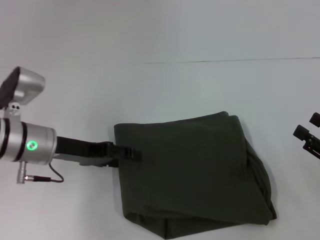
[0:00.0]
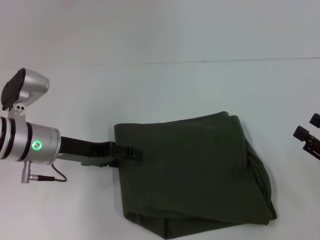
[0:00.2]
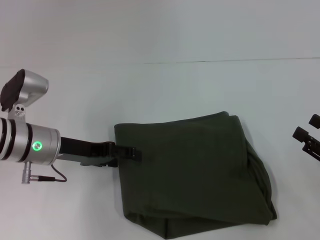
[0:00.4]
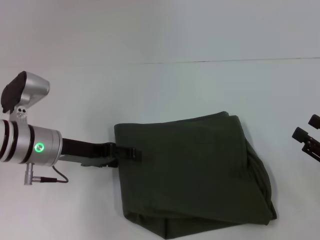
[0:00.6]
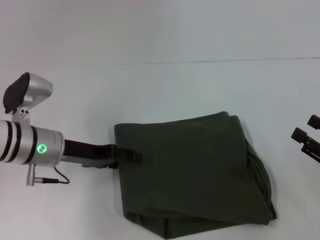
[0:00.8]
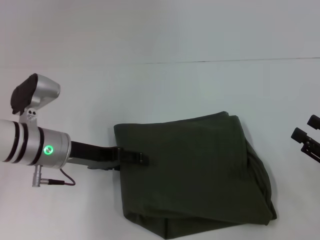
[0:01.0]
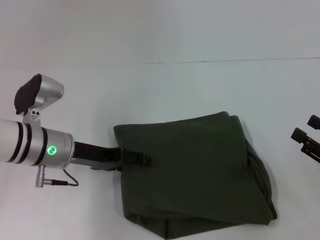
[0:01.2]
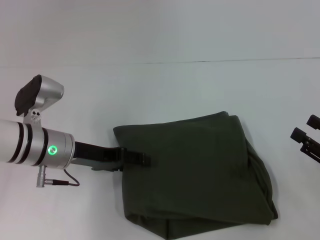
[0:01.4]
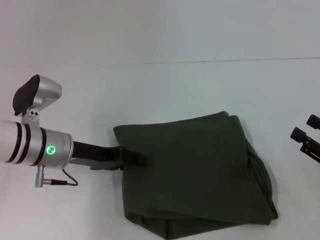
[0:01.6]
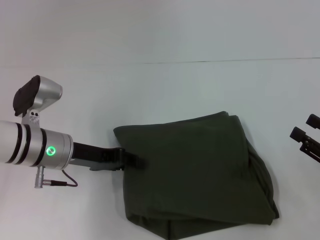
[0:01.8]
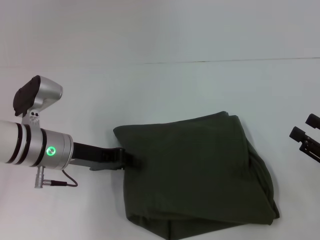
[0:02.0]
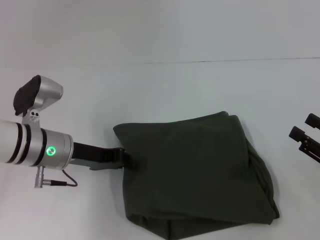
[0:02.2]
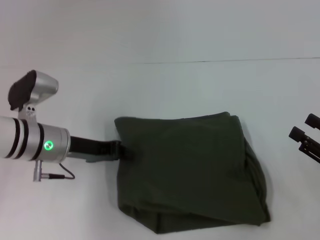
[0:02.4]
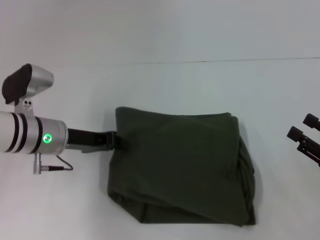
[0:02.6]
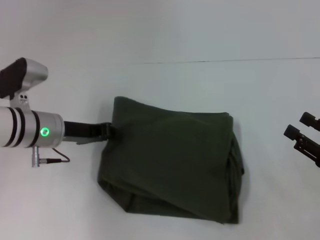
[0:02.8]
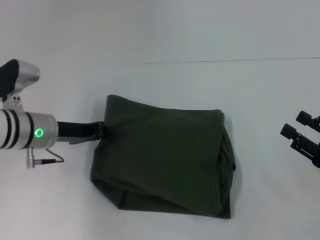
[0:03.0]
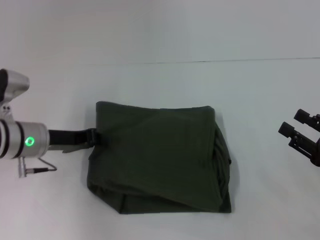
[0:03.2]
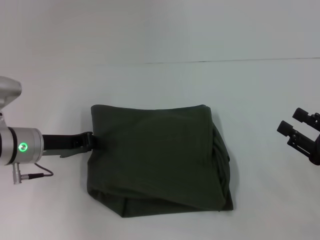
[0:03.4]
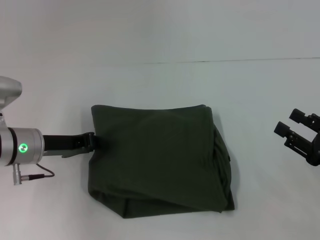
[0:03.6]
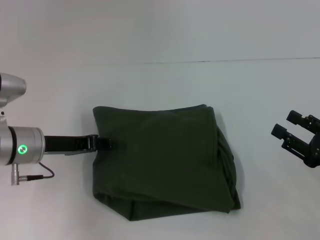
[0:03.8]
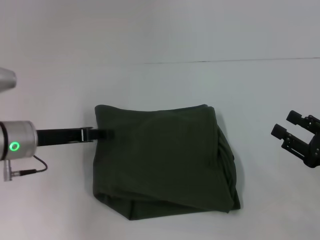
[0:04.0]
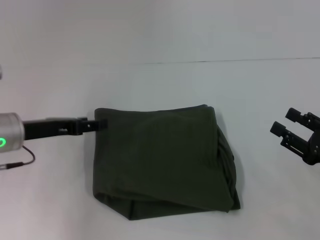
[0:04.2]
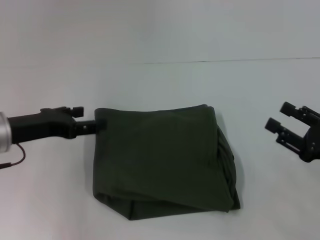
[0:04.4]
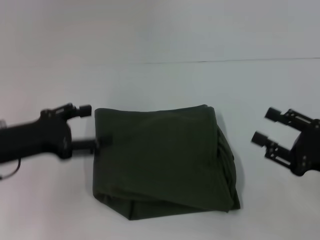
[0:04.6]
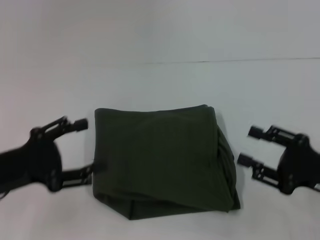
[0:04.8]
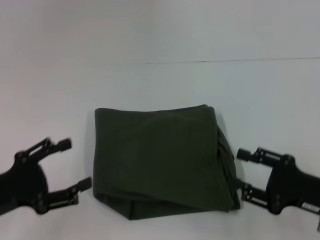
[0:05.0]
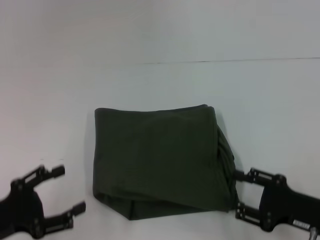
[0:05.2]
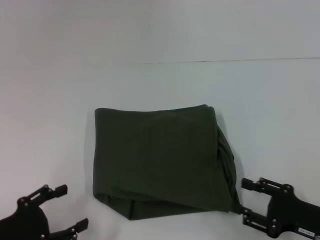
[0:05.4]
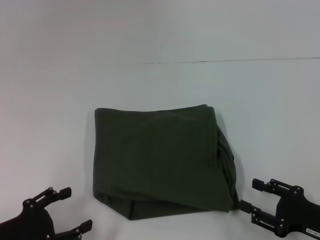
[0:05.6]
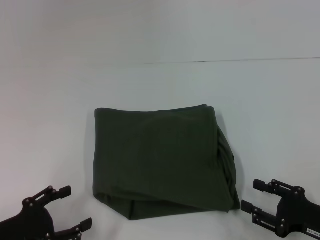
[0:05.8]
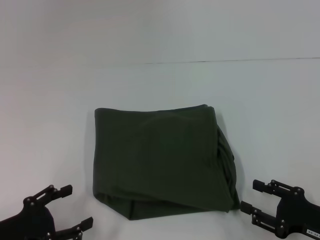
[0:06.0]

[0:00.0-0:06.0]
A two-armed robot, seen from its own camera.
0:00.0 to 0:01.6: The grippers move only a little.
0:01.6 to 0:03.0: The left gripper closes its fingers.
0:03.0 to 0:04.4: The left gripper moves backward, about 5 cm, and opens up.
0:04.4 to 0:06.0: The left gripper goes roughly 15 cm backward and downward; the right gripper goes approximately 10 cm downward and backward.

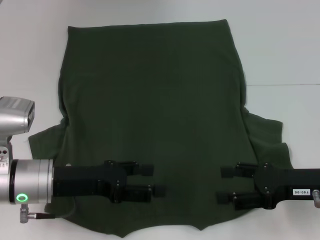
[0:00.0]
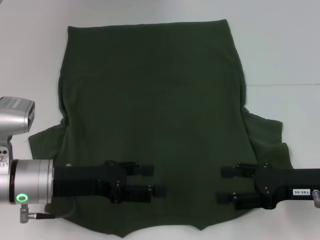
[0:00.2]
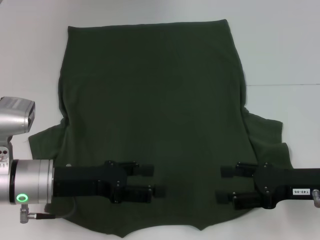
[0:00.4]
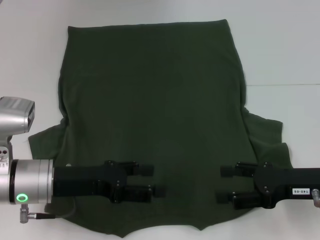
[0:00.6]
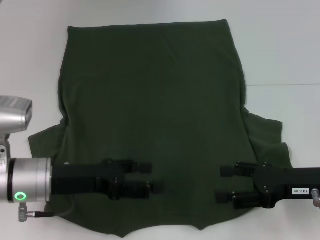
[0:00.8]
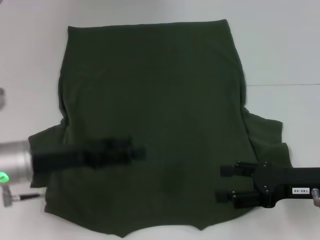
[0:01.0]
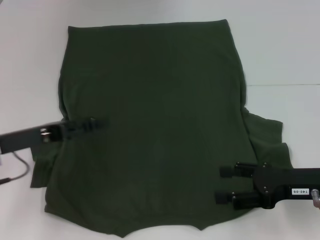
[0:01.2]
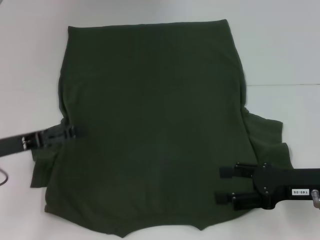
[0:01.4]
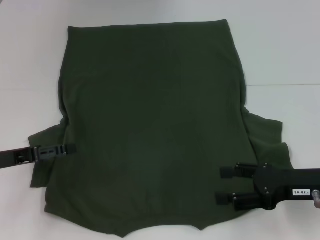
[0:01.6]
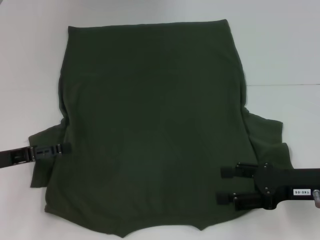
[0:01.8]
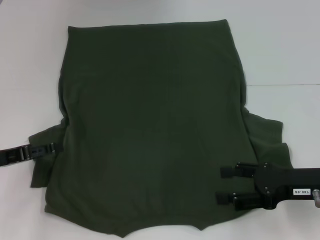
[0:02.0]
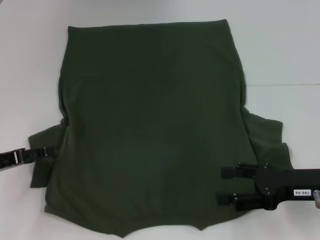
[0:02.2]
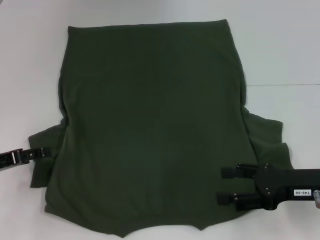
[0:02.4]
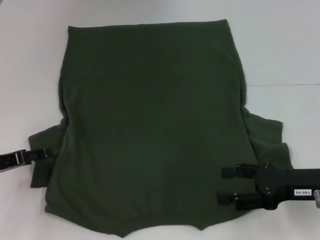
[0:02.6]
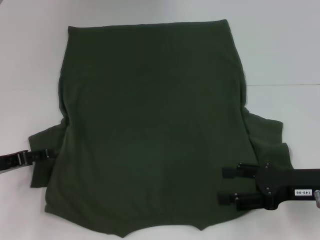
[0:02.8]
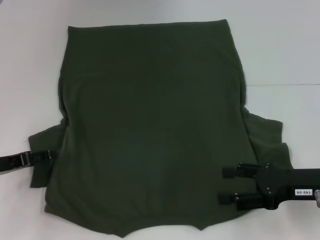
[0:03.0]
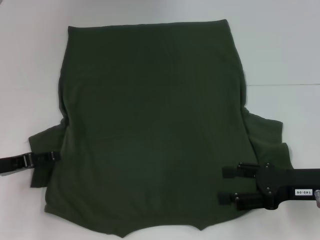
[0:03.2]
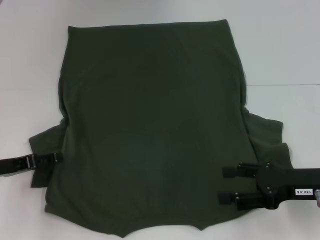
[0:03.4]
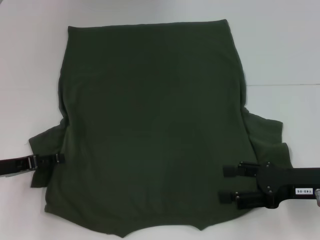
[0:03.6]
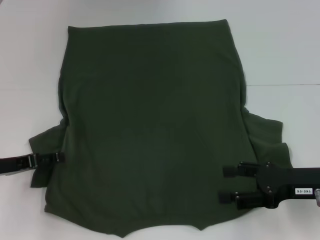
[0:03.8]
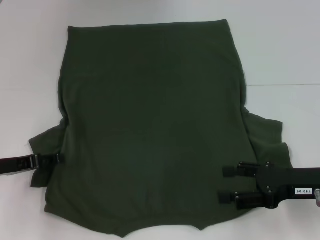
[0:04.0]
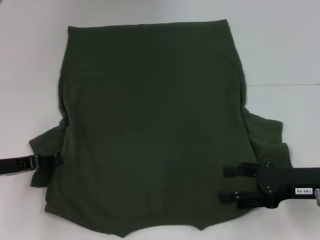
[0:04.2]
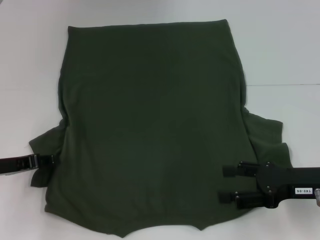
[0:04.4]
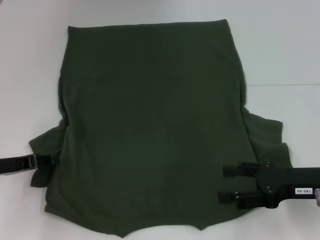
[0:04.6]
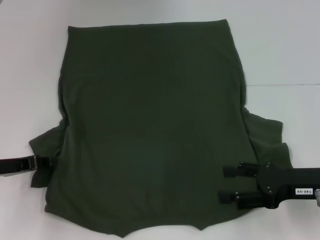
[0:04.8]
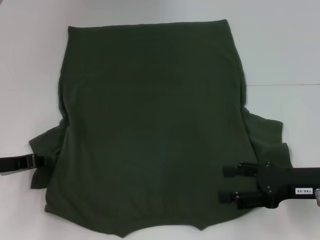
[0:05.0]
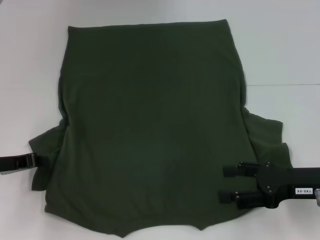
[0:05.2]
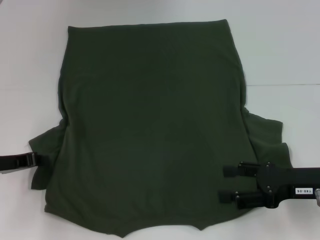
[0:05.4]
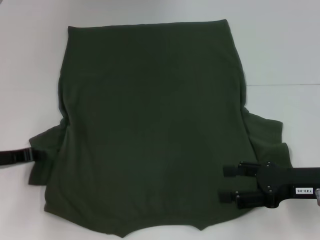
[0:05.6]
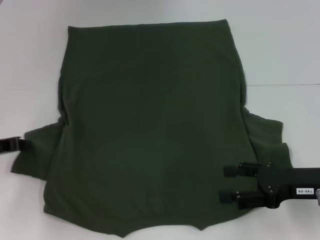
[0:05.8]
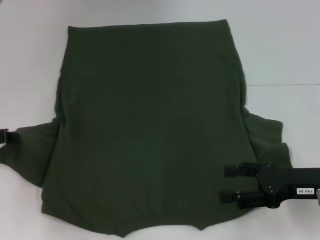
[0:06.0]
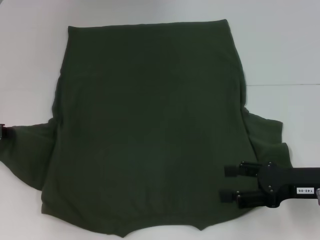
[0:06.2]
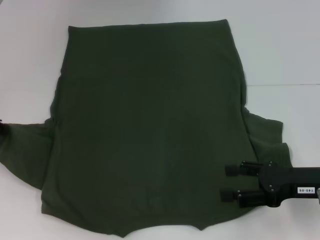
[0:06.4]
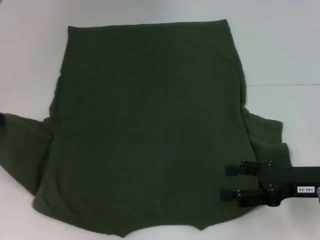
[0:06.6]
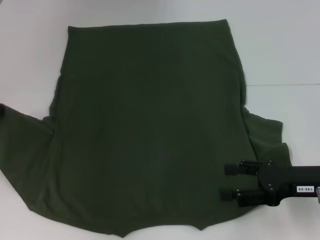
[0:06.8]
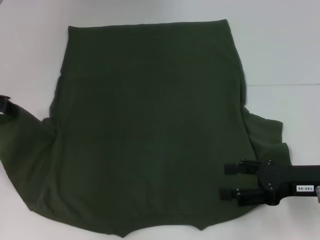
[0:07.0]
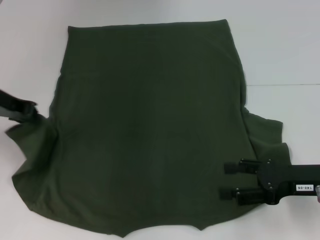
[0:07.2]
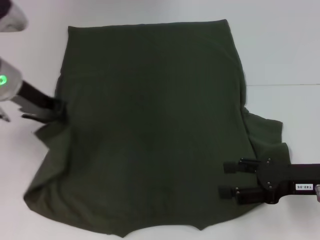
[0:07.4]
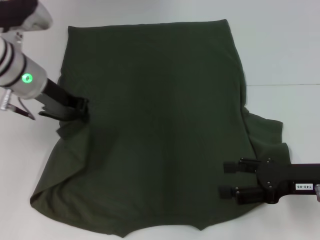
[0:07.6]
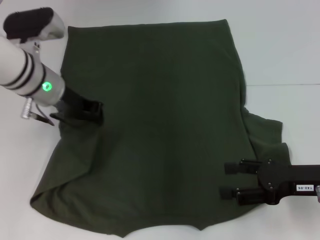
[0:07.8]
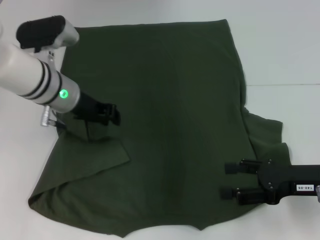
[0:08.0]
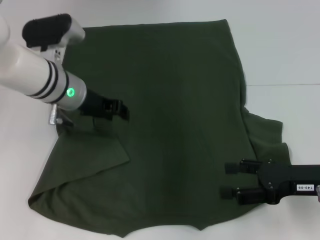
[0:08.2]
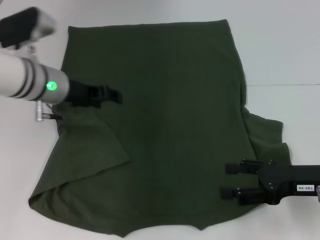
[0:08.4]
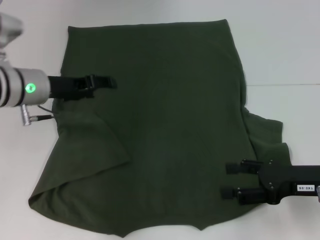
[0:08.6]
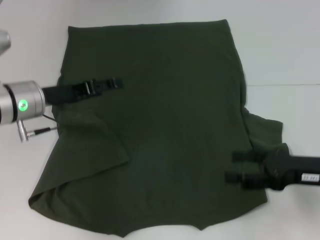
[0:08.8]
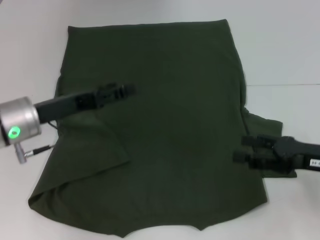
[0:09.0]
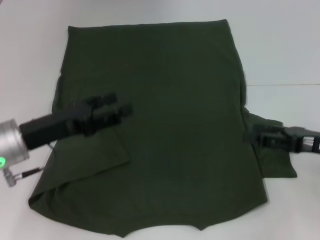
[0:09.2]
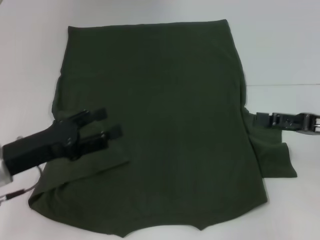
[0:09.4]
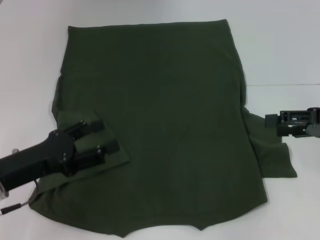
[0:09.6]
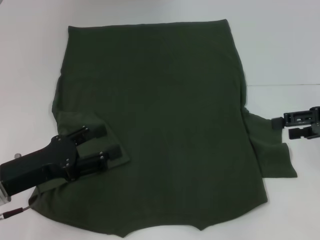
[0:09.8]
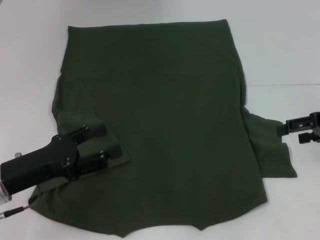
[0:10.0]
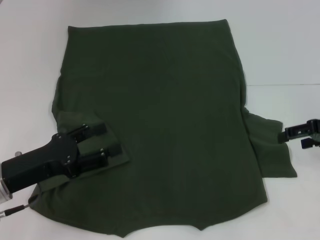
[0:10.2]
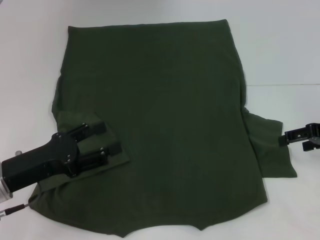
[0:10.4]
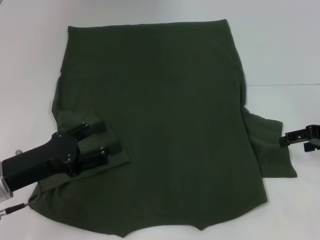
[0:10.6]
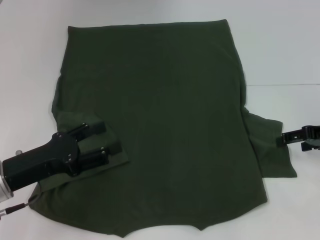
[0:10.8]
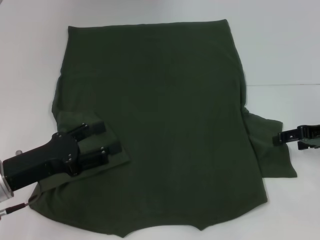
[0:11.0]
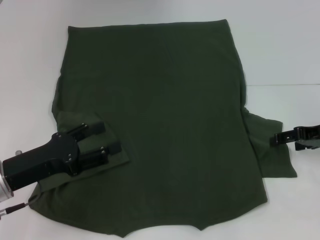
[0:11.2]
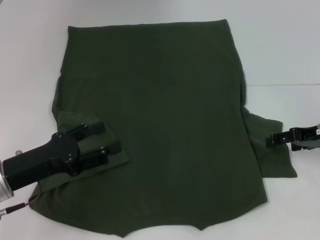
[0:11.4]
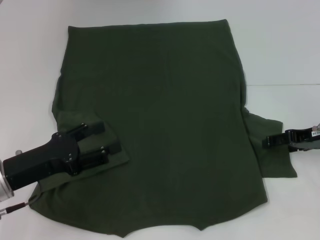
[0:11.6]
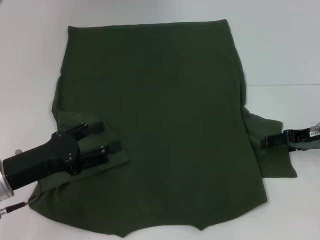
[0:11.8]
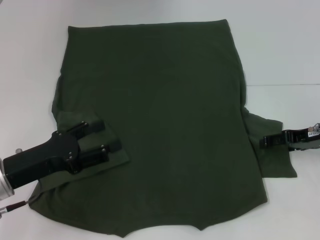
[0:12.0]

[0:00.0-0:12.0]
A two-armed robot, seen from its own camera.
Step, 0:00.0 to 0:08.4: Fold the bottom left sleeve with your left hand.
0:00.0 to 0:01.6: The left gripper goes about 10 cm to the left.
0:01.6 to 0:03.0: The grippers move only a little.
0:03.0 to 0:04.4: Neither gripper changes place.
0:04.4 to 0:06.0: The left gripper changes place by roughly 5 cm, and closes its fingers.
0:06.0 to 0:07.6: The left gripper goes approximately 20 cm to the right, upward and forward.
0:07.6 to 0:09.0: The left gripper heads backward and downward, covering about 10 cm, and opens.
0:09.0 to 0:10.4: The left gripper is displaced backward by roughly 10 cm; the right gripper shifts about 10 cm forward.
0:10.4 to 0:12.0: The right gripper shifts by some 5 cm.

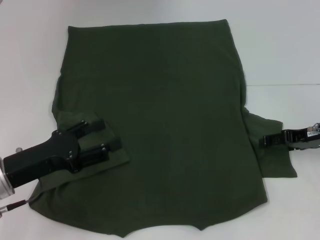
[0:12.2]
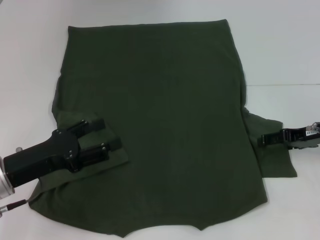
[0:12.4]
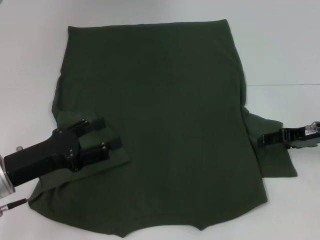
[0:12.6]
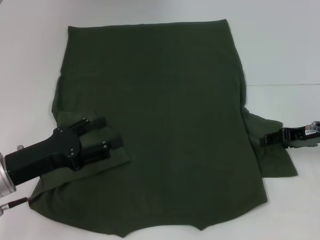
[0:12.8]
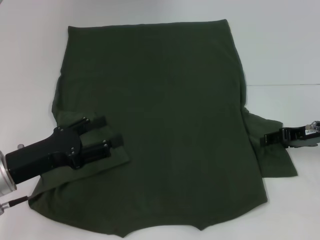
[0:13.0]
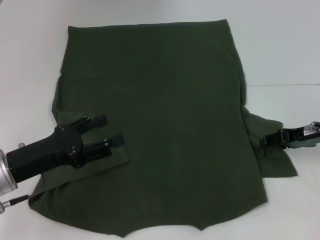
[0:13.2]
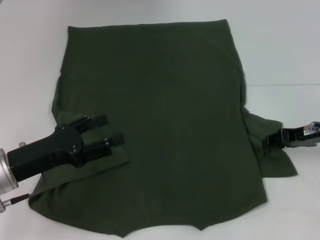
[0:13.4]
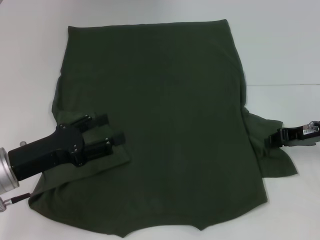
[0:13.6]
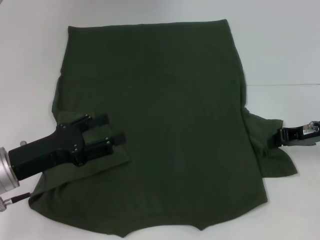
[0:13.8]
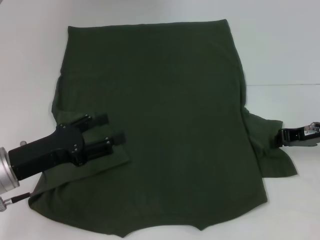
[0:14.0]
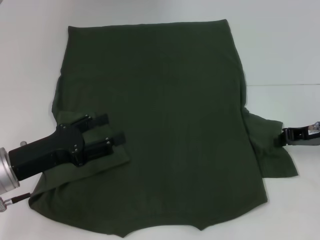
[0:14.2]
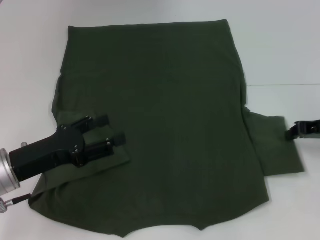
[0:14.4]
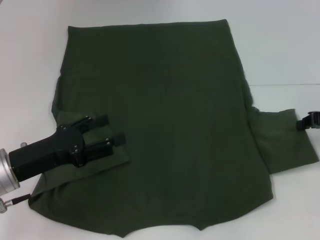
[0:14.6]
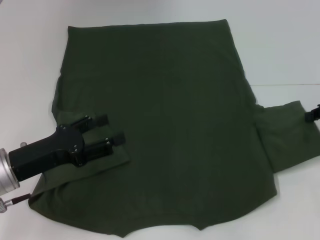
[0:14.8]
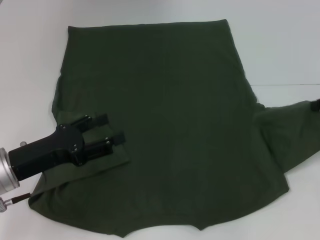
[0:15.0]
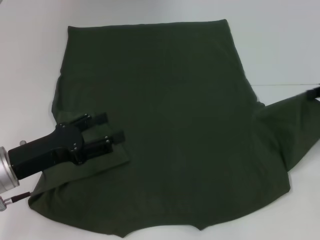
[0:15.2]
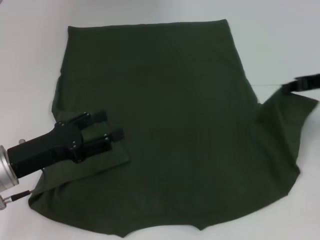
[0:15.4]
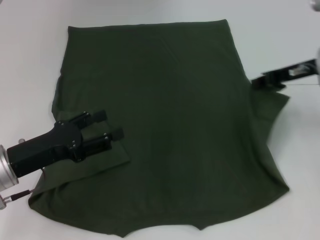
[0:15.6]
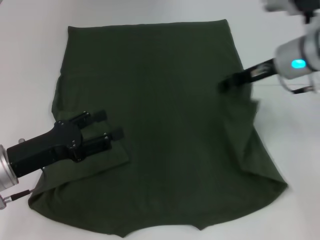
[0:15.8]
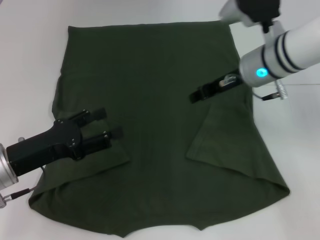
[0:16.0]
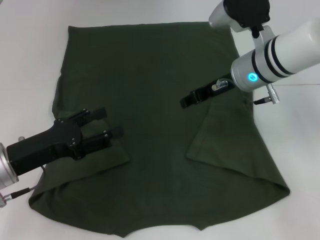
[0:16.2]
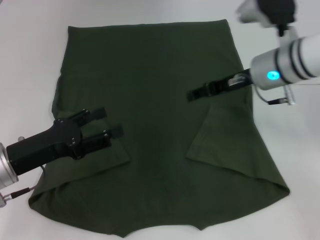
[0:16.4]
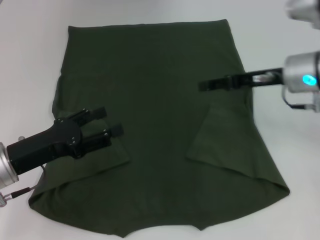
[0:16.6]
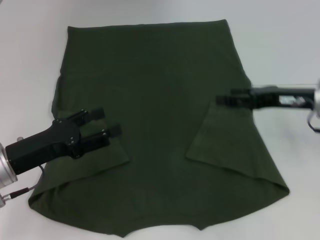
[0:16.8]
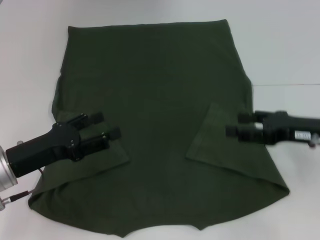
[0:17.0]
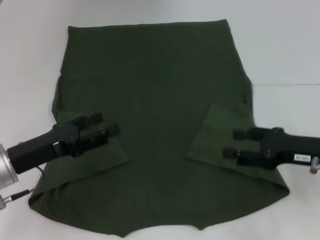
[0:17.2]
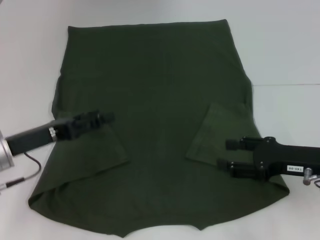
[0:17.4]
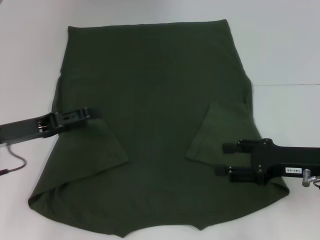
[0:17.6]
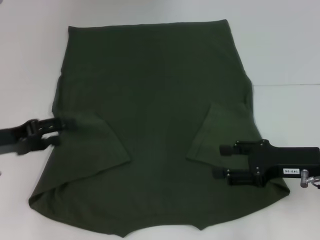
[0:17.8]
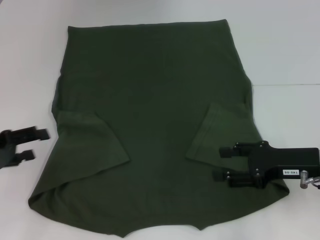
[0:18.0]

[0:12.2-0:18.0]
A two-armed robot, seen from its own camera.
Step, 0:12.2 to 0:16.4: Fold the bottom right sleeve with your right hand.
0:12.2 to 0:13.6: The right gripper closes.
0:13.6 to 0:15.0: The right gripper heads to the right and upward, covering approximately 10 cm, and closes its fingers.
0:15.0 to 0:16.6: The right gripper shifts about 15 cm to the left, and opens.
0:16.6 to 0:18.0: The right gripper is displaced backward and downward by some 15 cm; the left gripper travels to the left by approximately 10 cm.
